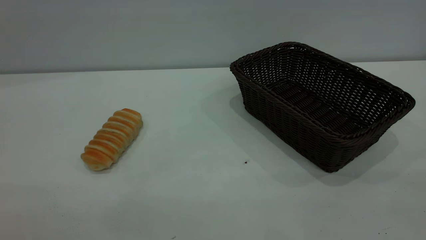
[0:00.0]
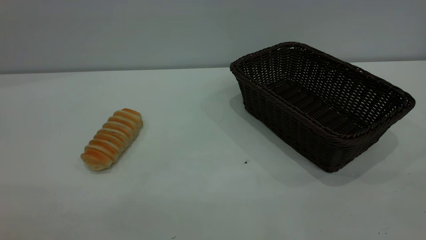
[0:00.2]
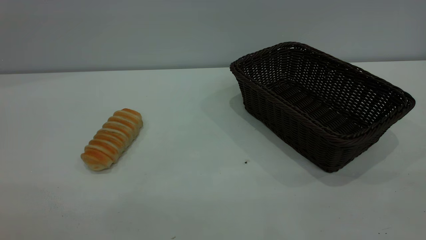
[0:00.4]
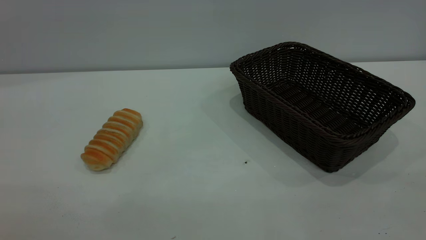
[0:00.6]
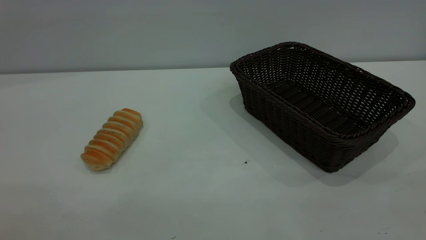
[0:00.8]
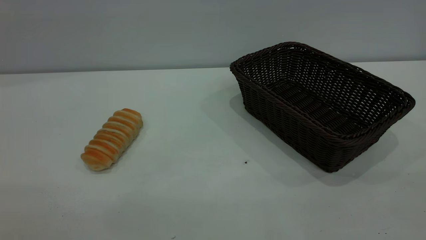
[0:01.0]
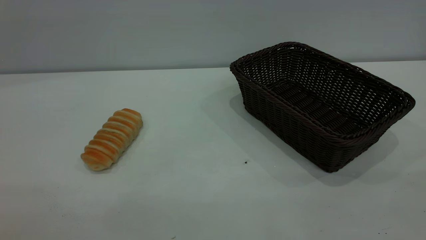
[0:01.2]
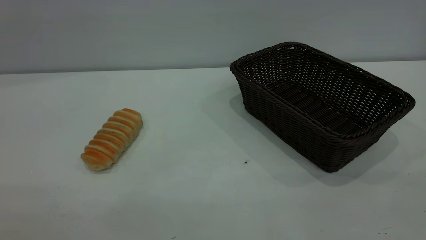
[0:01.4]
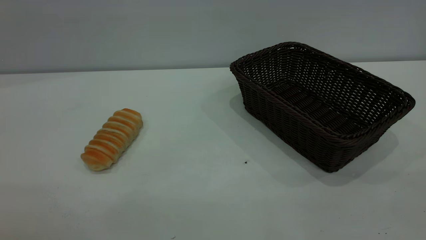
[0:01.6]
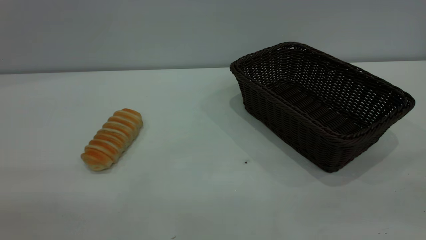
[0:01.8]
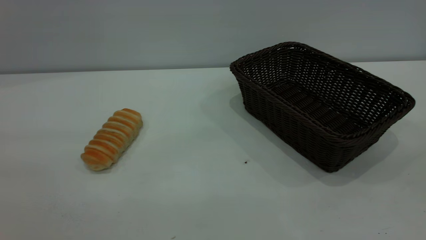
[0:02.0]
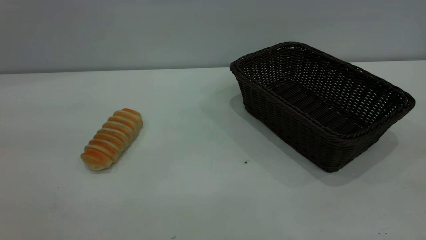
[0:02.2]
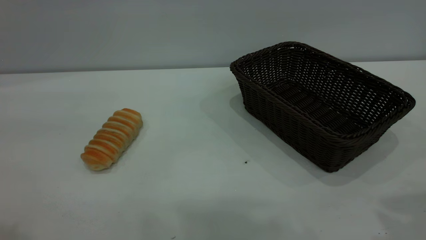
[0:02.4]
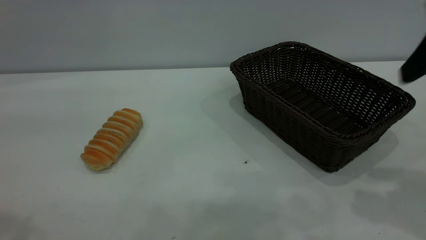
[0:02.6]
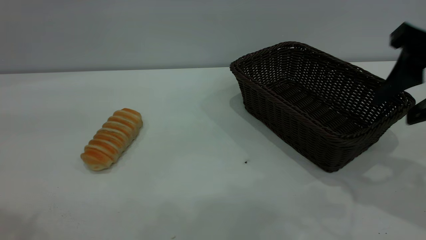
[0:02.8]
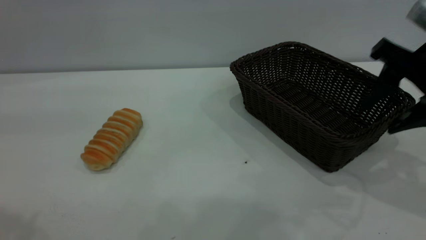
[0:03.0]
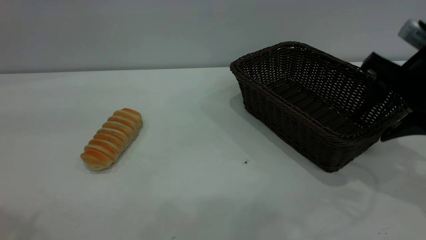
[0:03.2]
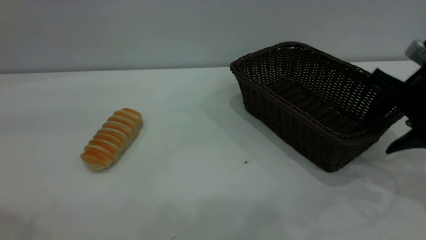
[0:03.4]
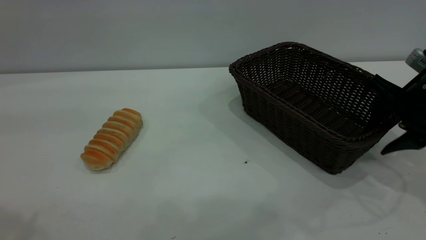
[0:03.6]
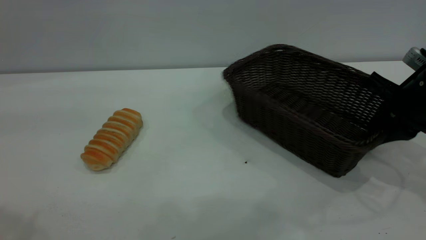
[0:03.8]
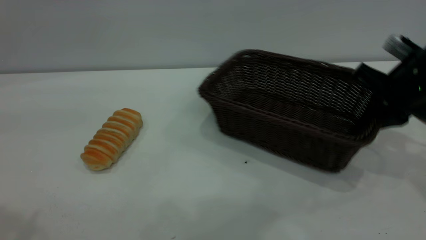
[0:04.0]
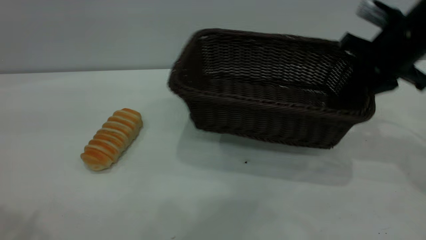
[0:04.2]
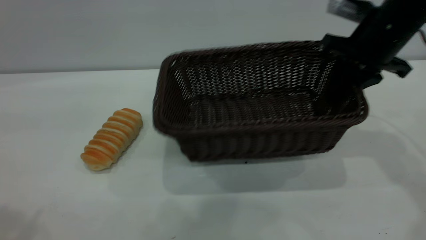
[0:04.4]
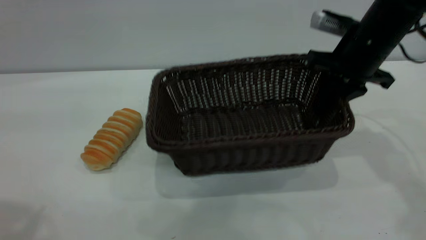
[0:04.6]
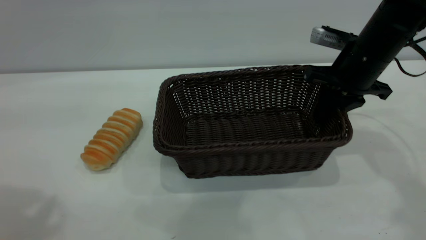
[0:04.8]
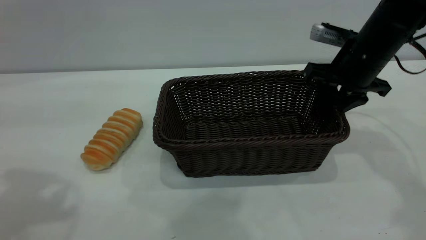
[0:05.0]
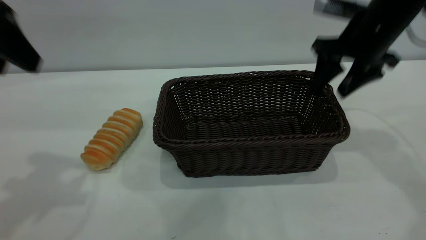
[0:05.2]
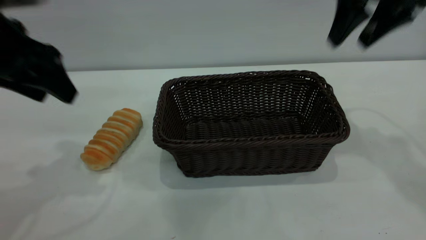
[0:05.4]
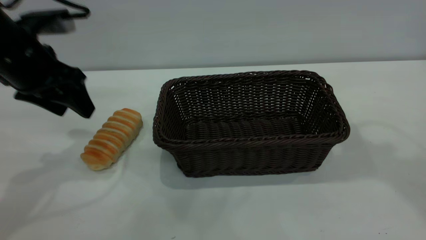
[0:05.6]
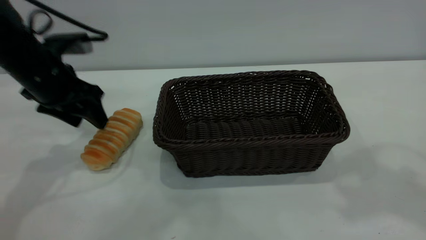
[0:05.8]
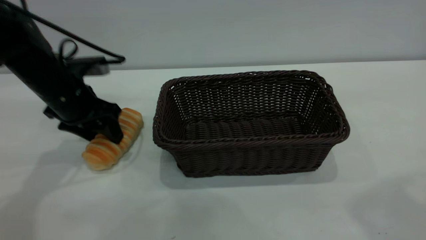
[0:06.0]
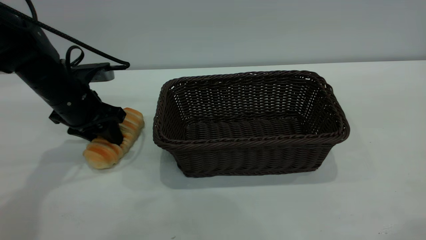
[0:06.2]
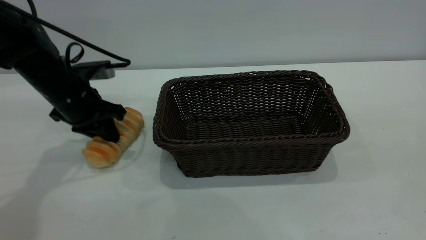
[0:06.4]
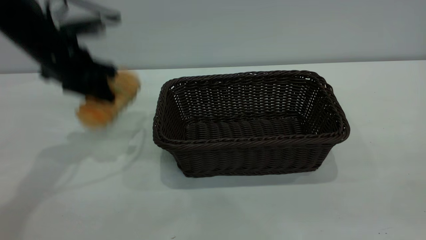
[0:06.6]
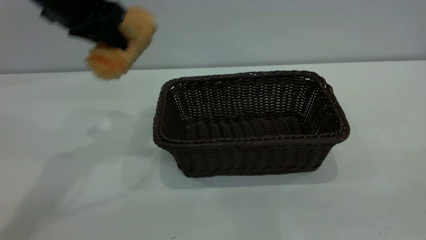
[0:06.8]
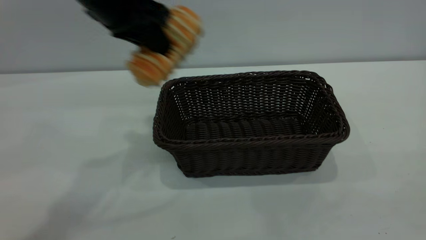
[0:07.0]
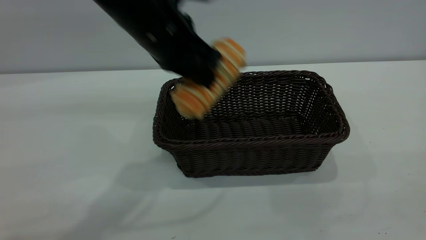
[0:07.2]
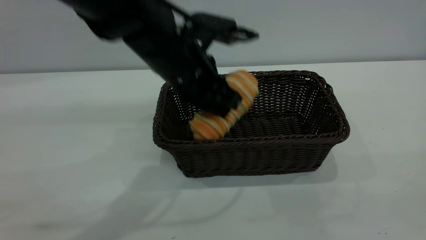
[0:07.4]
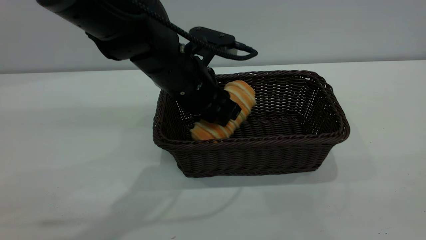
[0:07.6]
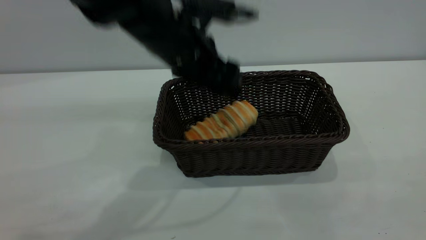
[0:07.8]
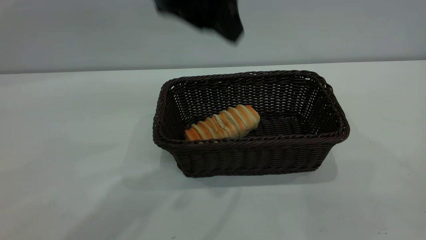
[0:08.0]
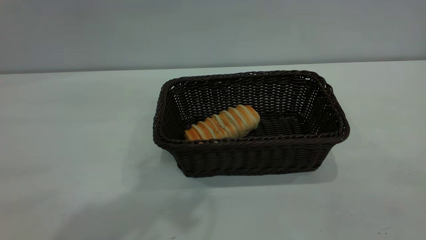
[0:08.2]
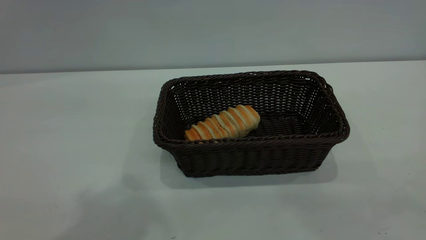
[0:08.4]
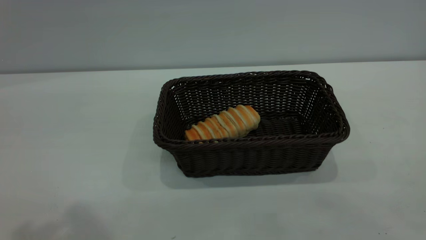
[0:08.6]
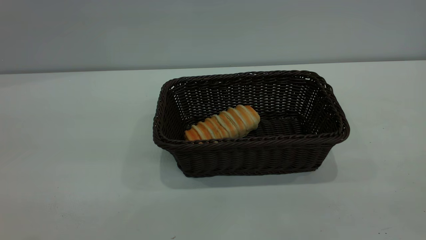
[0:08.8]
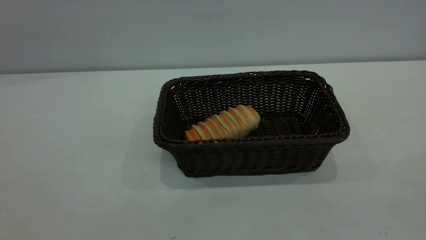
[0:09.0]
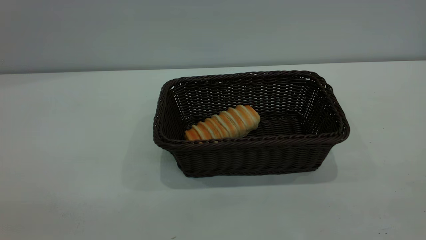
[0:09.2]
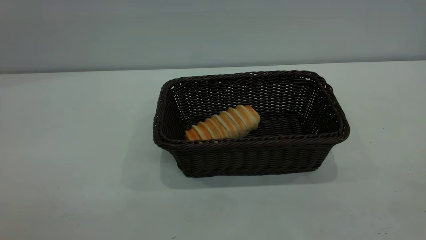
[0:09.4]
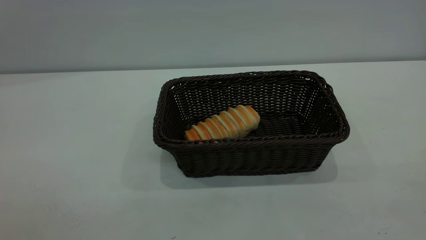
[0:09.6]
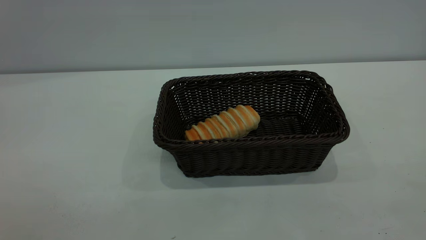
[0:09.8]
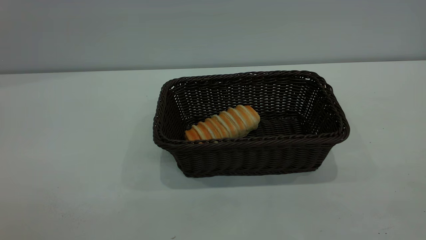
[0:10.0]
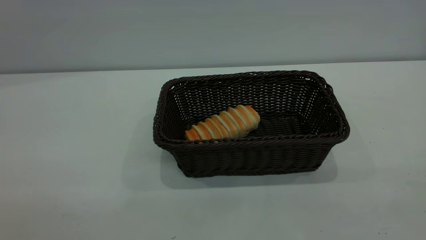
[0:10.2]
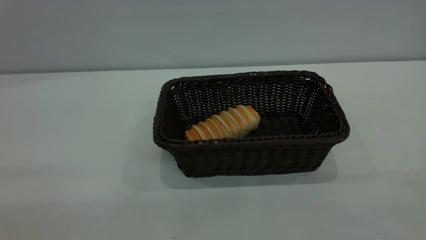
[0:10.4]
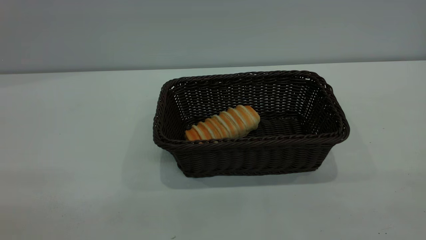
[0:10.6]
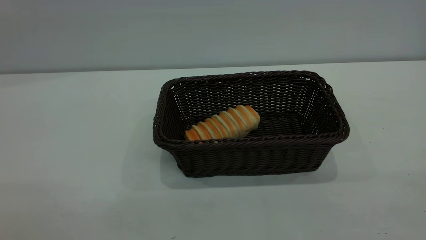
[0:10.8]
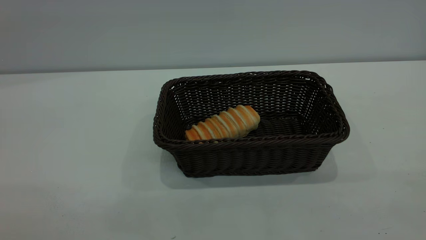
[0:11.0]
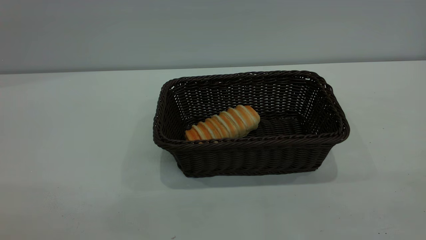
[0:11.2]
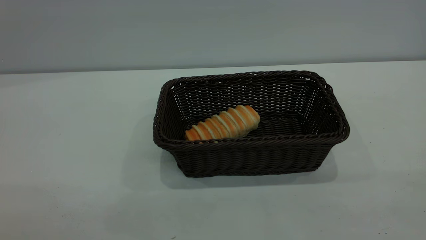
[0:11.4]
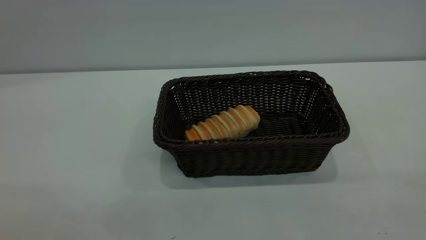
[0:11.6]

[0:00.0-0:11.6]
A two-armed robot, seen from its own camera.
Task of the whole recording: One hand grasps the black basket and places it in the middle of the table, while the other hand picks up the long bread and puts it into the black basket.
Step, 0:00.0 to 0:05.2: Move the basket to the center of view.
Step, 0:06.6 to 0:07.8: place the bread into the basket.
0:00.0 to 0:01.4: Both grippers stay put.
0:01.4 to 0:02.8: The right gripper travels forward by about 30 cm.
0:02.8 to 0:04.4: The right gripper is displaced forward by approximately 10 cm, and closes.
0:04.4 to 0:05.8: The left gripper goes roughly 35 cm downward and forward. The right gripper goes some 30 cm upward and backward, and opens up.
0:05.8 to 0:07.2: The right gripper goes about 25 cm backward and downward, while the left gripper is displaced to the right by about 20 cm, and closes its fingers.
0:07.2 to 0:08.8: The left gripper is displaced backward, upward and to the left by approximately 35 cm, and opens.
